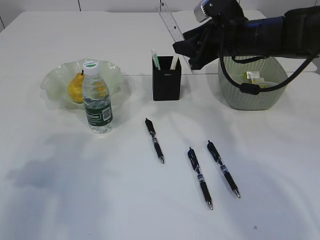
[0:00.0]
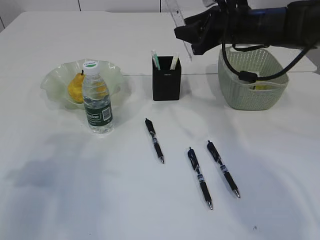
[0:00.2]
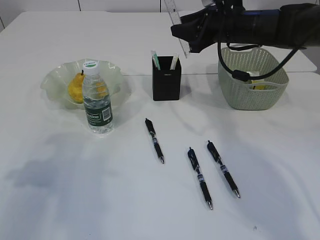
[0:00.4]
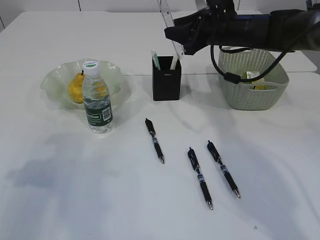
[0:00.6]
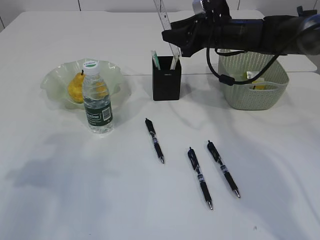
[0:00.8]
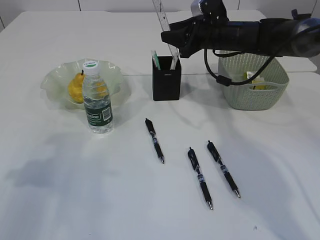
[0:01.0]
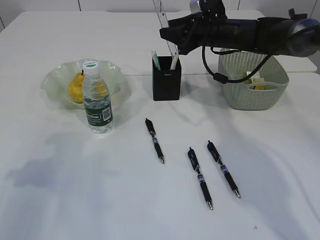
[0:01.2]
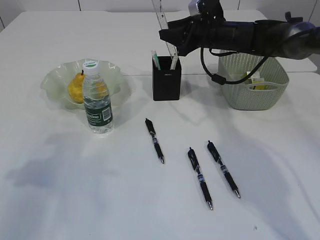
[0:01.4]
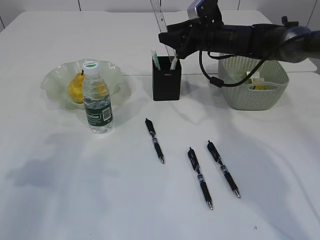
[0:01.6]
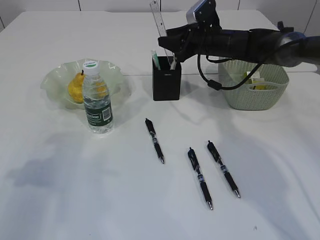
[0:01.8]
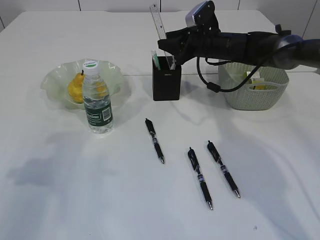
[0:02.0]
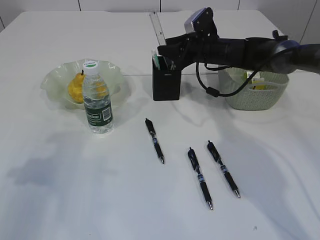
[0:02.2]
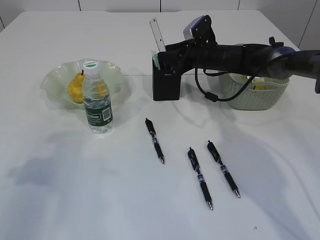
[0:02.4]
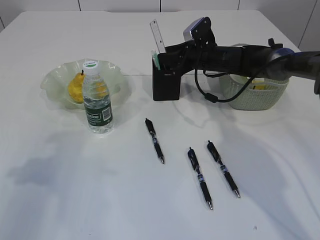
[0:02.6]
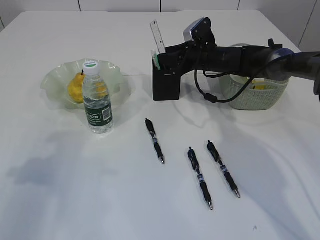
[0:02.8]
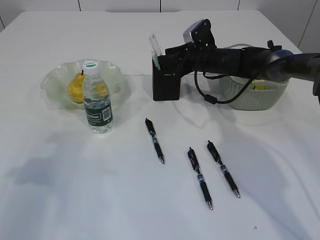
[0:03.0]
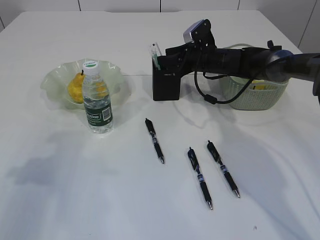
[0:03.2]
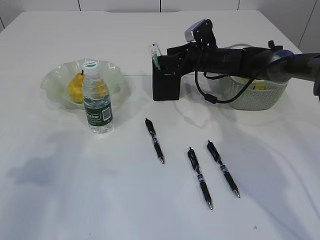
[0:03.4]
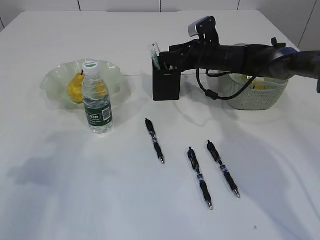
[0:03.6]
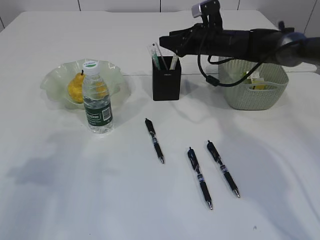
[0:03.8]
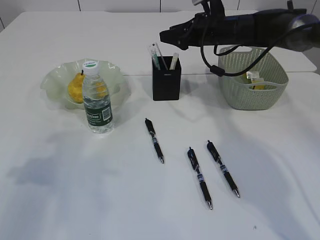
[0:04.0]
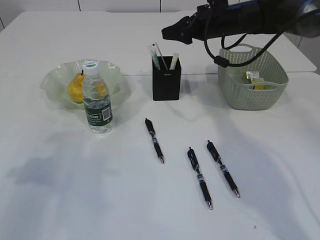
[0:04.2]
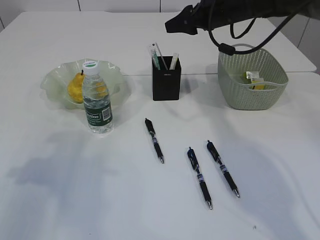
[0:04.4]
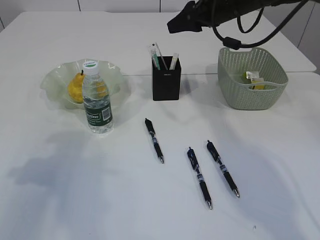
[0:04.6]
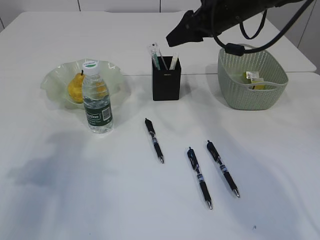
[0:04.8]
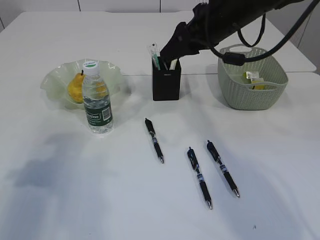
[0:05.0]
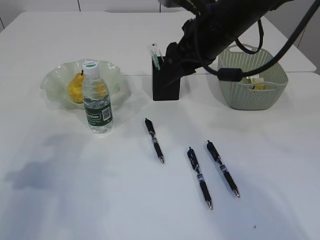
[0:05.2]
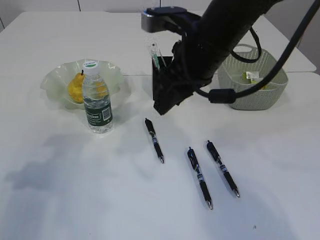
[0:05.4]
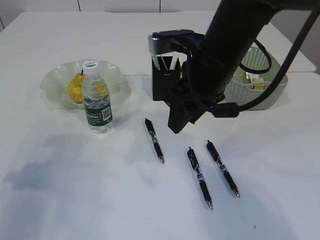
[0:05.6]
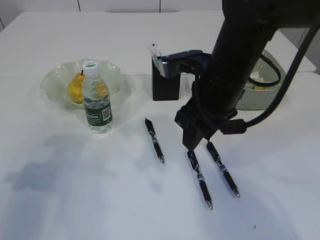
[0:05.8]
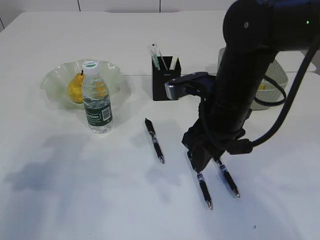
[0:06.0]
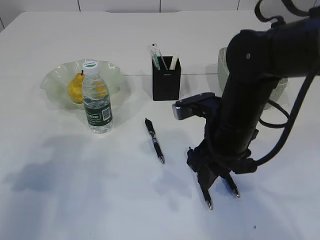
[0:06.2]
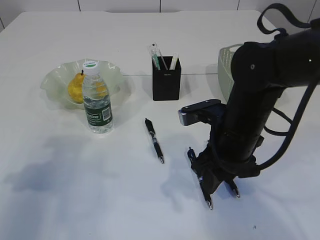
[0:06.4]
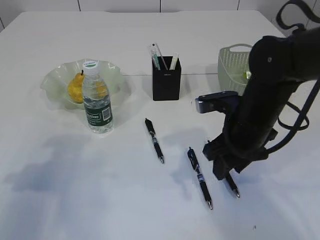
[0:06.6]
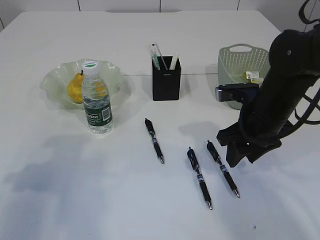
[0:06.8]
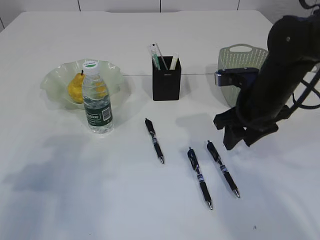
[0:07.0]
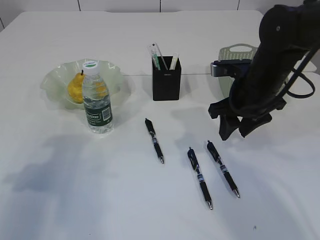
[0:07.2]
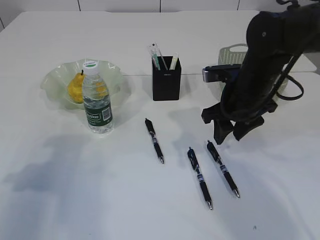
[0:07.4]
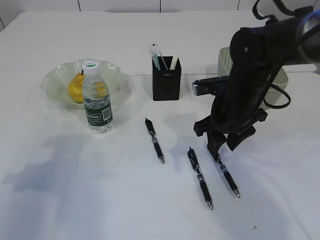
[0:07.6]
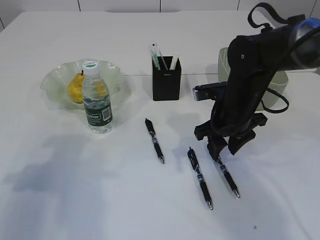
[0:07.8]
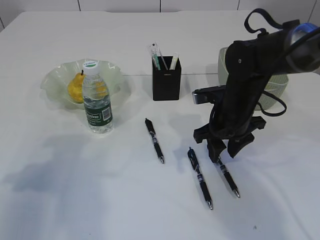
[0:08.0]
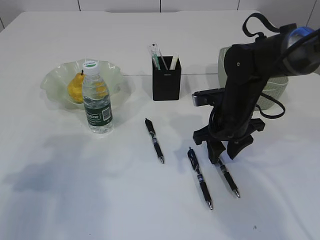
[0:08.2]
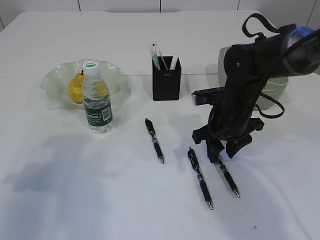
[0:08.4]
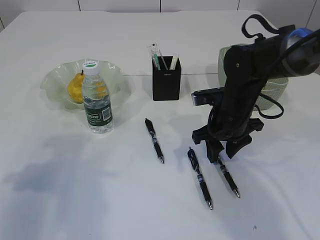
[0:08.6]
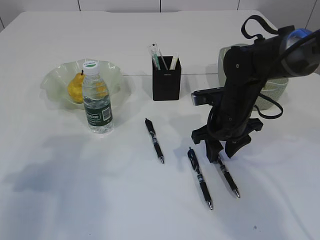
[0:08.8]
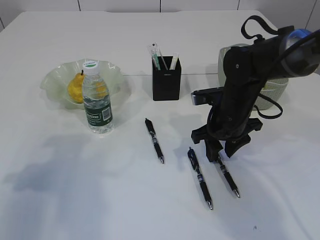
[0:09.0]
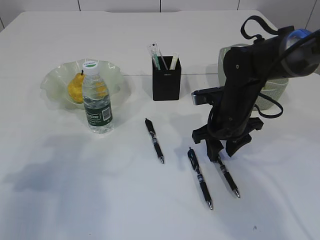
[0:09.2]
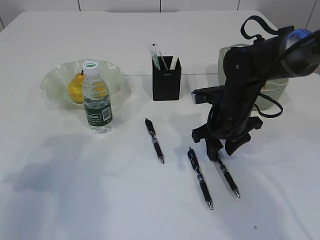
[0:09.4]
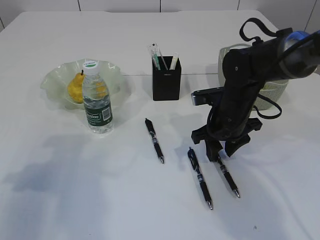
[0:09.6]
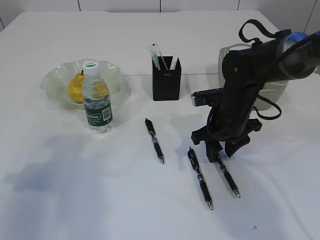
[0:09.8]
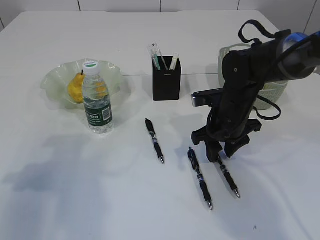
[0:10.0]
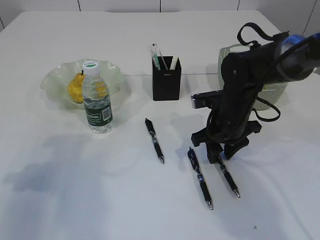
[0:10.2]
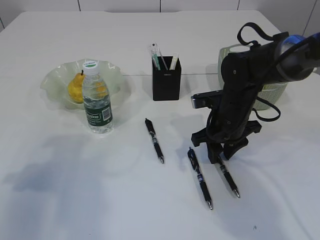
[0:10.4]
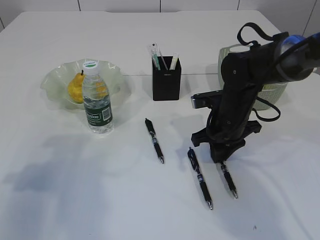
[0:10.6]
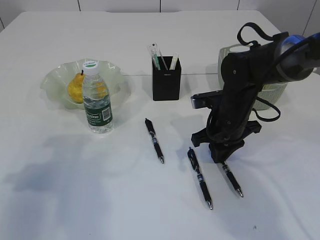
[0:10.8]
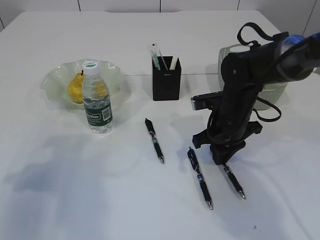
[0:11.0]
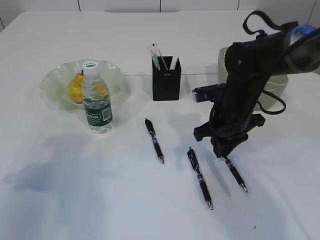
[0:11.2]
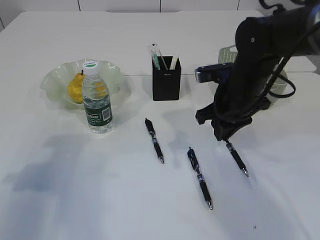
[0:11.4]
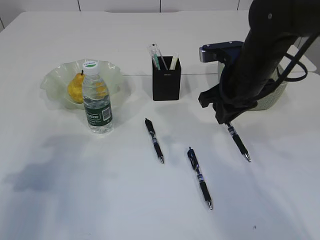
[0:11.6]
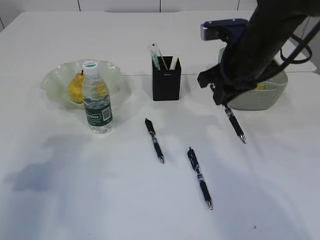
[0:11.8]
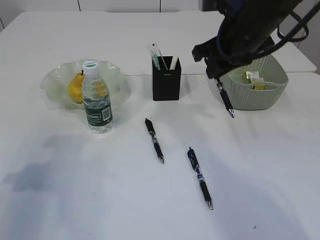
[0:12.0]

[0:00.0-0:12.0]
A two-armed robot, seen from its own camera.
Step, 0:00.0 to 0:05.2: Place the ruler into the pen holder.
Step, 0:05.4 to 0:11.4: Pick up the pen with right arm.
0:00.0 to 0:01.6: The right gripper goes about 10 cm forward.
0:01.6 to 0:03.0: The right gripper shifts about 5 cm downward.
0:03.0 to 0:04.4: The right gripper moves upward, approximately 15 cm.
0:04.4 to 0:06.0: The right gripper travels backward by roughly 20 cm.
0:06.0 to 0:07.6: The right gripper travels forward by roughly 5 cm.
0:07.6 to 0:09.0: The grippers move only a little.
0:09.0 to 0:10.4: Neither gripper changes place.
0:10.4 to 0:12.0: The right gripper goes about 15 cm upward, and closes its fingers.

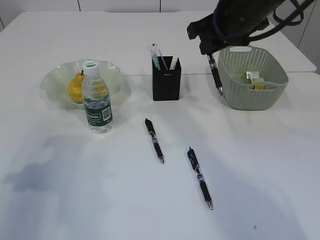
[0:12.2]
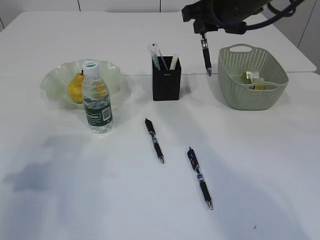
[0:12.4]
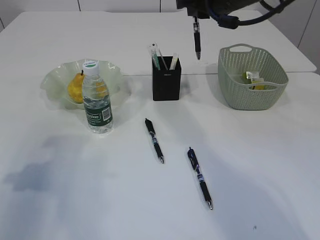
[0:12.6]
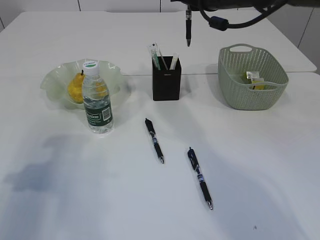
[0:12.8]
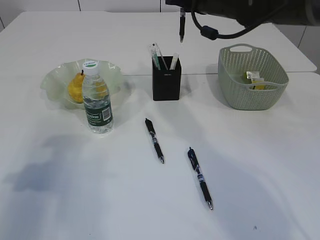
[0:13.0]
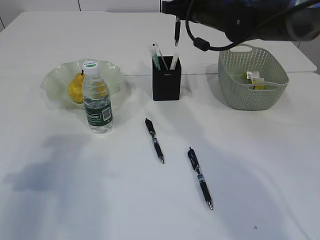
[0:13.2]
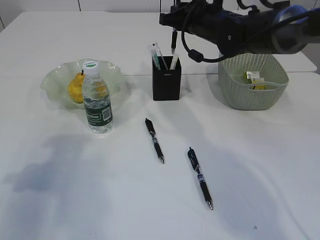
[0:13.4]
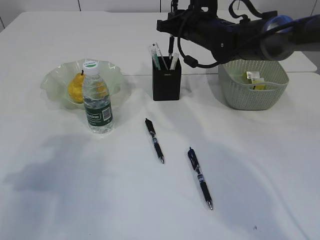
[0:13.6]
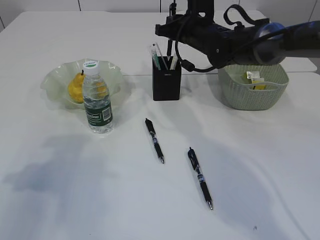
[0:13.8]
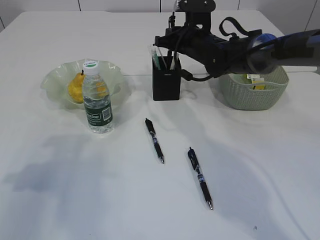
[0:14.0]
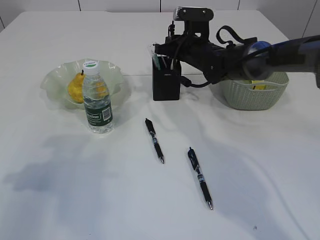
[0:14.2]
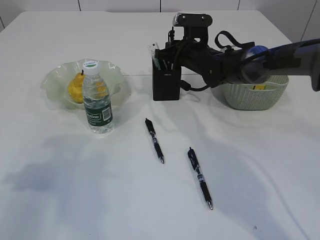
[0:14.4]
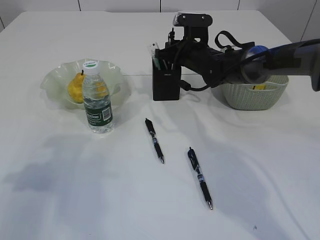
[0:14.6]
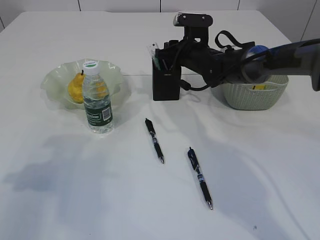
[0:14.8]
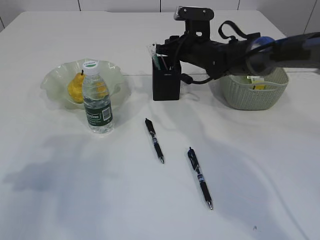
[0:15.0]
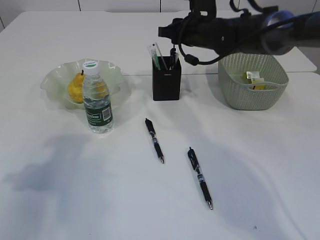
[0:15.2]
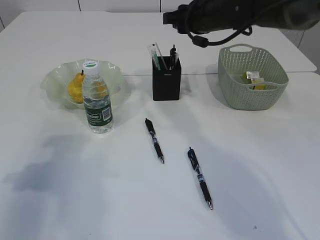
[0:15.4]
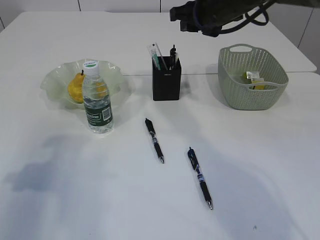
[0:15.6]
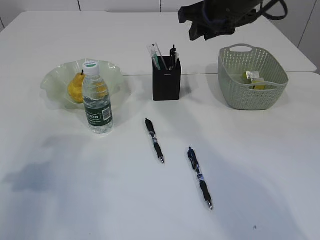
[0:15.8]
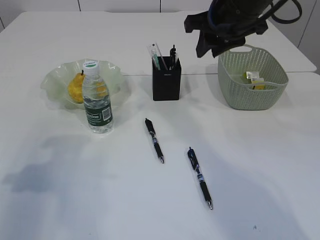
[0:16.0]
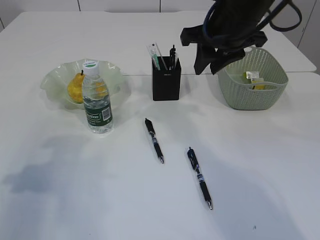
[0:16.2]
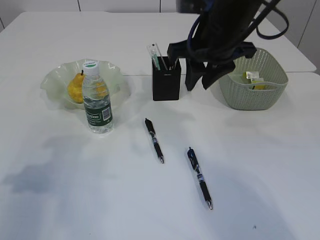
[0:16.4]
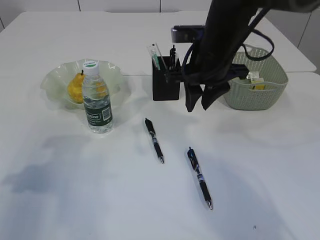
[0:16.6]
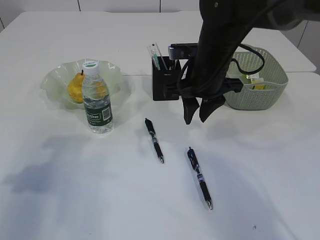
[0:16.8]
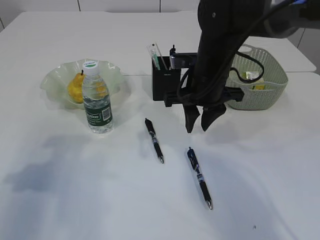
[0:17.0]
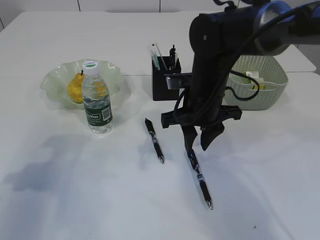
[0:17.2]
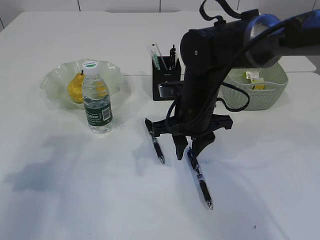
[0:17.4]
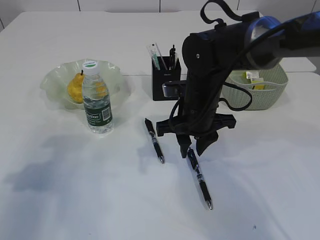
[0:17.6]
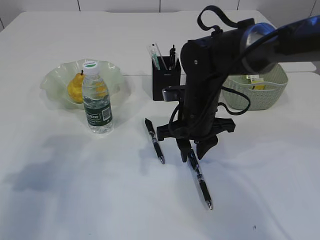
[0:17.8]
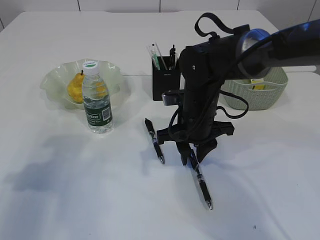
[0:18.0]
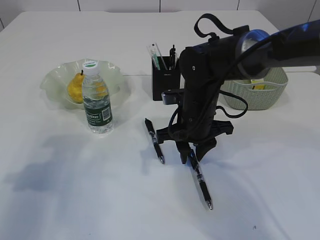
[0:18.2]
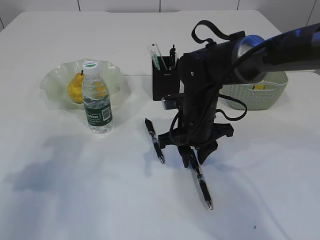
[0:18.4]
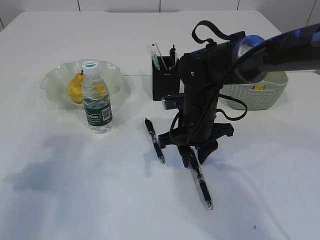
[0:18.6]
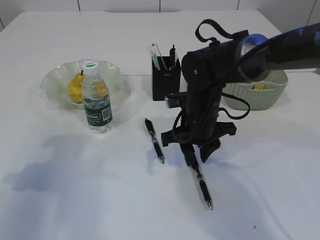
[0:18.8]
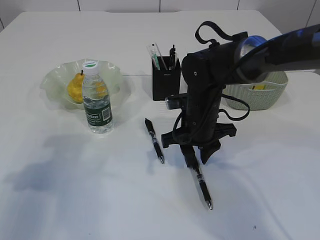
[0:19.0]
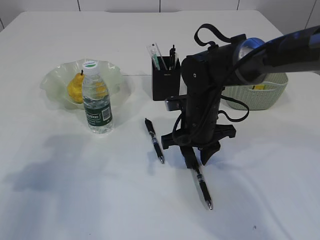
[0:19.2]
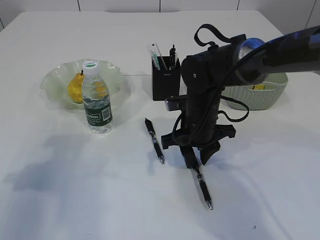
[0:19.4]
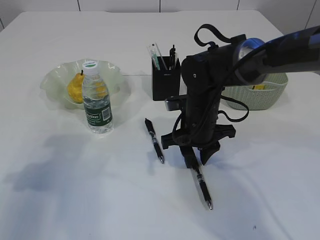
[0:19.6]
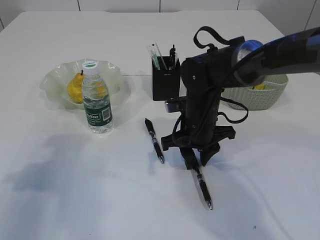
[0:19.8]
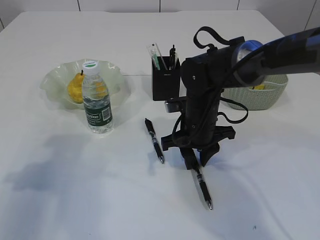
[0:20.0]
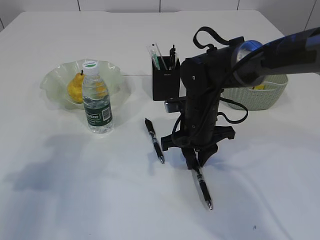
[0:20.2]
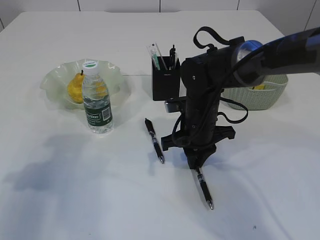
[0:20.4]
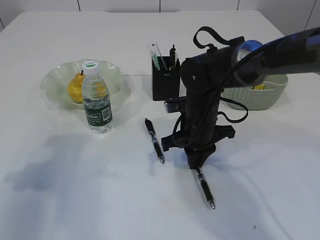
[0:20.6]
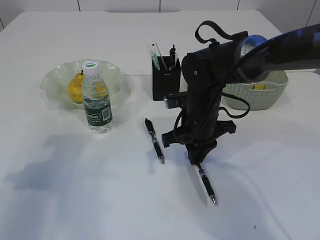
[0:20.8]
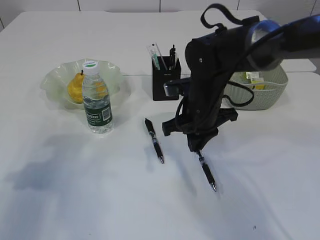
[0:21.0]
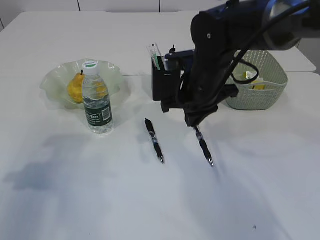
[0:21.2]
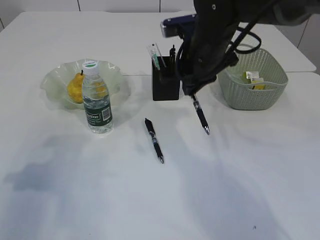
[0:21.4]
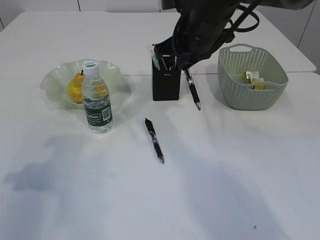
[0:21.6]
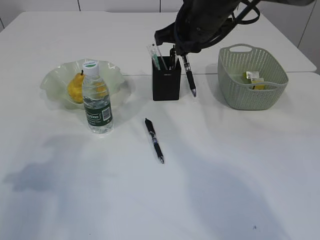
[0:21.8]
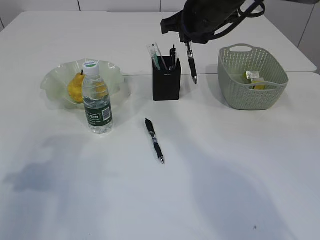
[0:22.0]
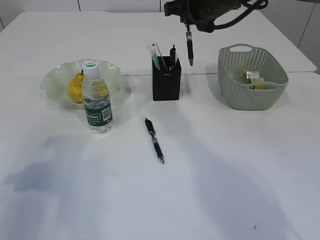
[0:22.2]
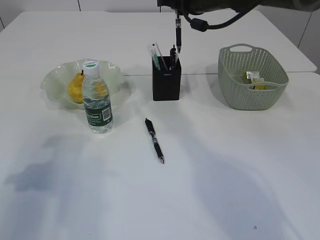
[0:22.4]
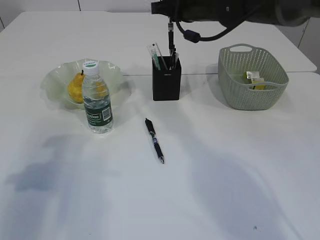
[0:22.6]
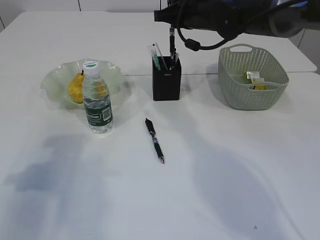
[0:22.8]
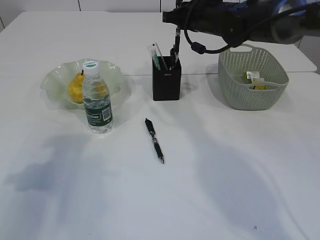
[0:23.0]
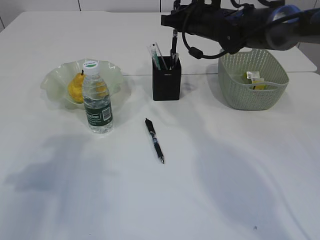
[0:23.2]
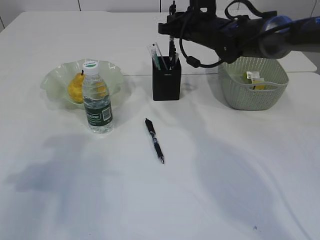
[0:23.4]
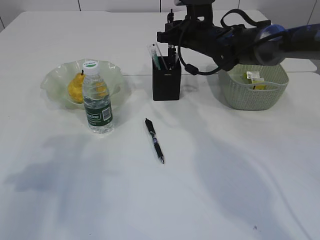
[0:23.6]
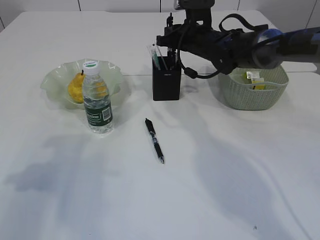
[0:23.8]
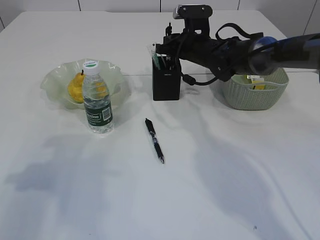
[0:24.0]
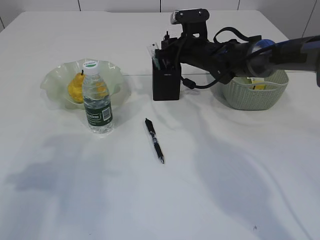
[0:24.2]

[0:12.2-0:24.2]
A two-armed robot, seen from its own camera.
Step, 0:12.2 to 0:16.2: Place the pen into the pen holder.
Step, 0:16.4 to 0:21.4: Pick up the pen with right arm.
0:12.2 to 0:13.8: The right gripper is displaced forward and downward by some 15 cm.
0:13.8 to 0:15.2: The grippers make only small movements.
0:15.2 to 0:16.6: The right gripper heads backward, covering roughly 10 cm.
0:16.6 to 0:18.2: The right gripper shifts some 10 cm downward.
0:18.2 to 0:19.8: The grippers make only small movements.
0:19.8 to 0:21.2: The right gripper heads upward, covering about 10 cm, and closes up.
0:21.2 to 0:22.6: The right gripper travels forward and upward by about 15 cm.
0:22.6 to 0:24.2: The right gripper shifts some 10 cm downward.
